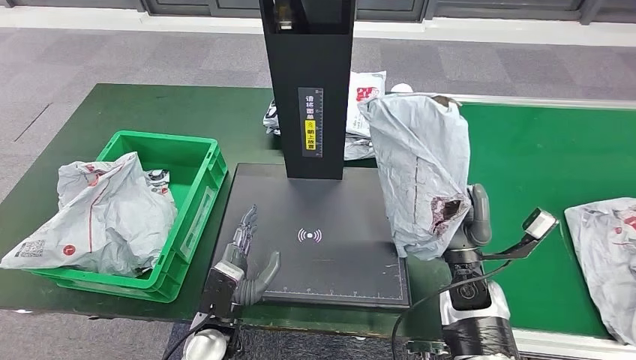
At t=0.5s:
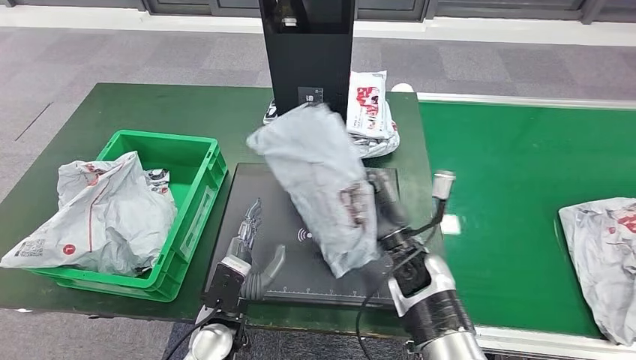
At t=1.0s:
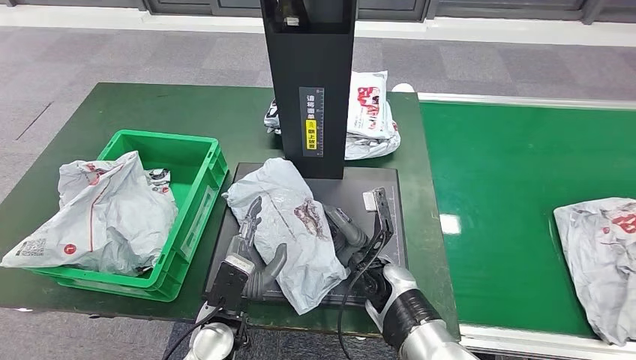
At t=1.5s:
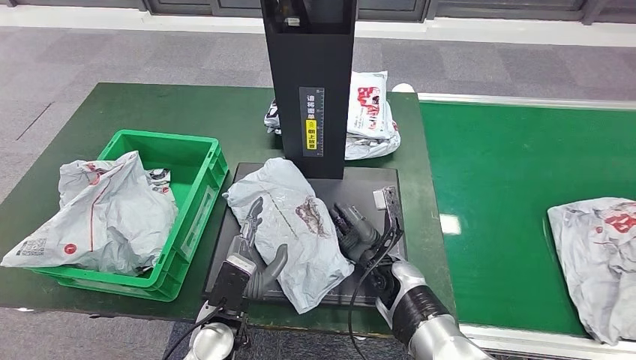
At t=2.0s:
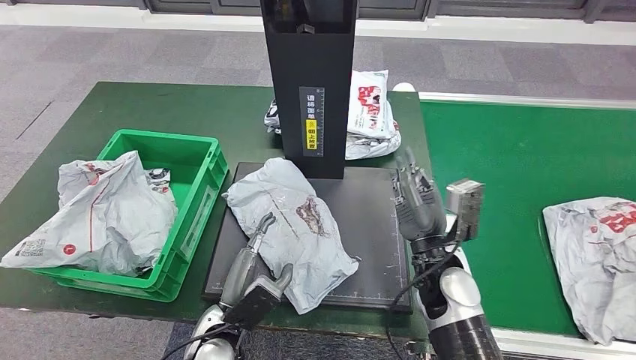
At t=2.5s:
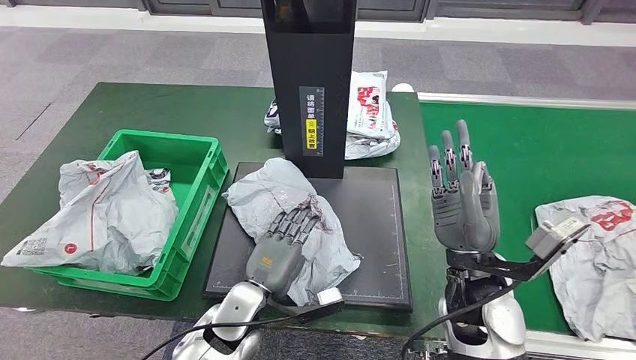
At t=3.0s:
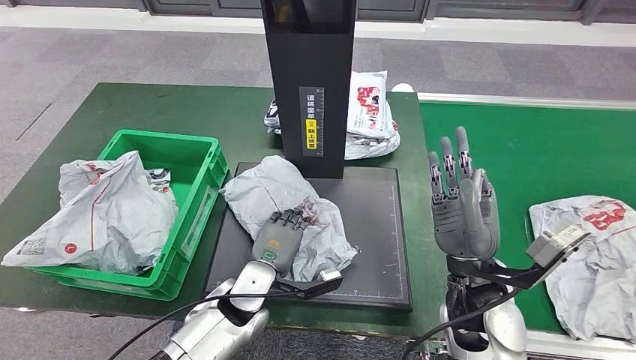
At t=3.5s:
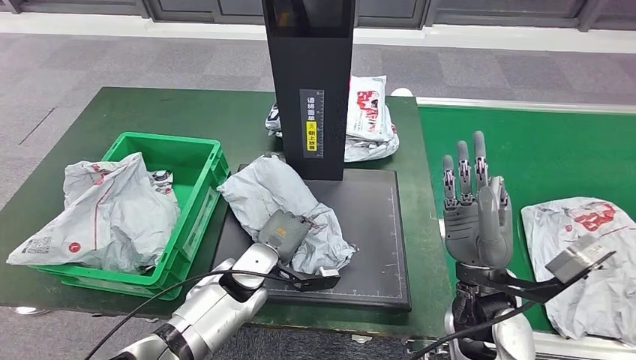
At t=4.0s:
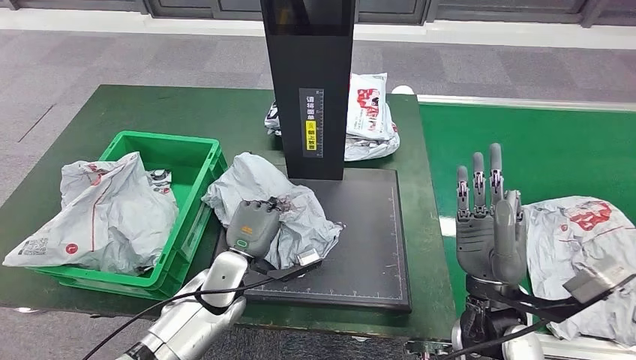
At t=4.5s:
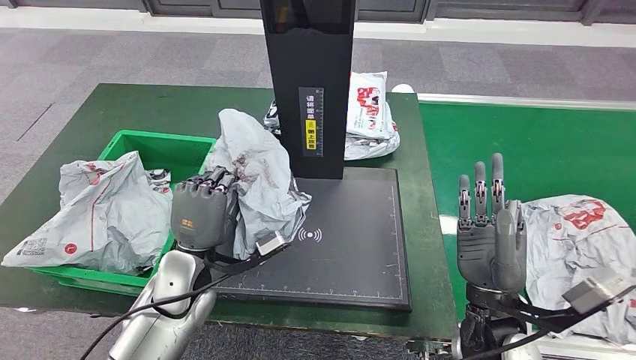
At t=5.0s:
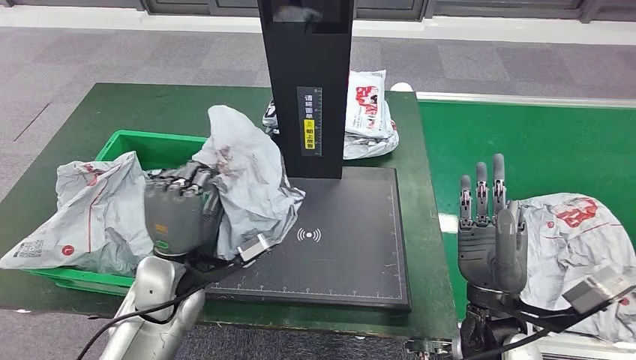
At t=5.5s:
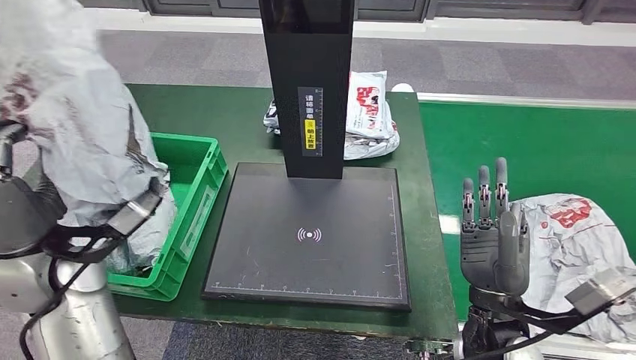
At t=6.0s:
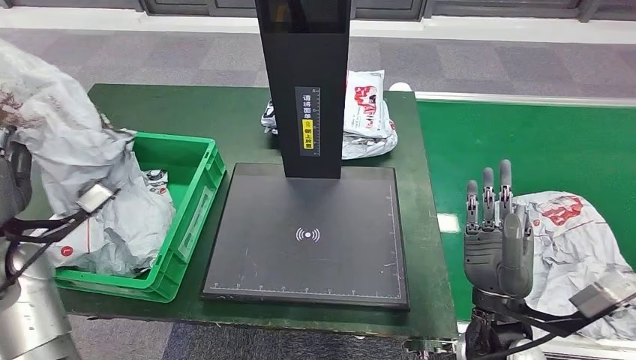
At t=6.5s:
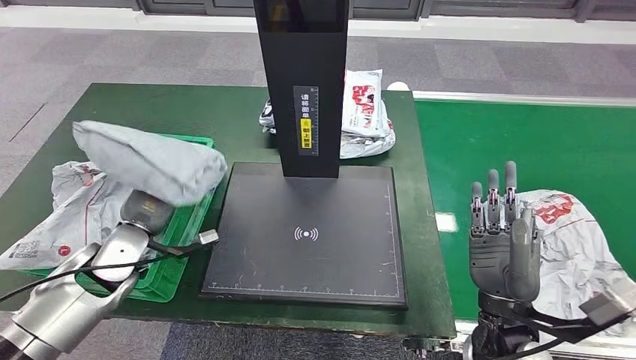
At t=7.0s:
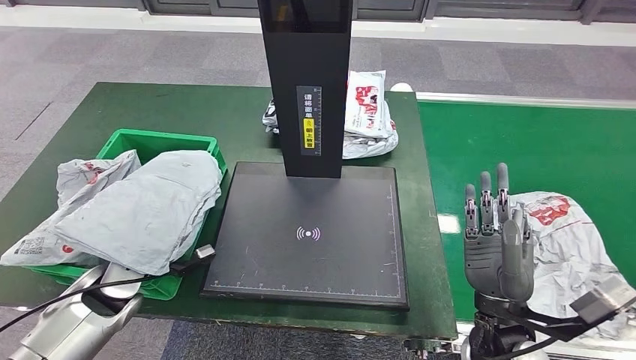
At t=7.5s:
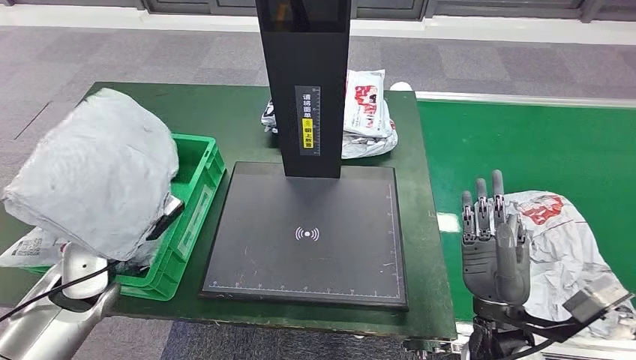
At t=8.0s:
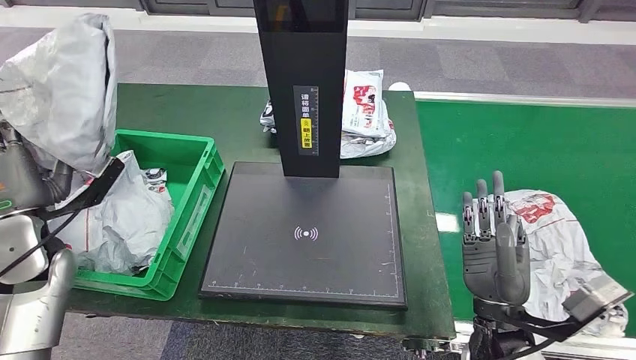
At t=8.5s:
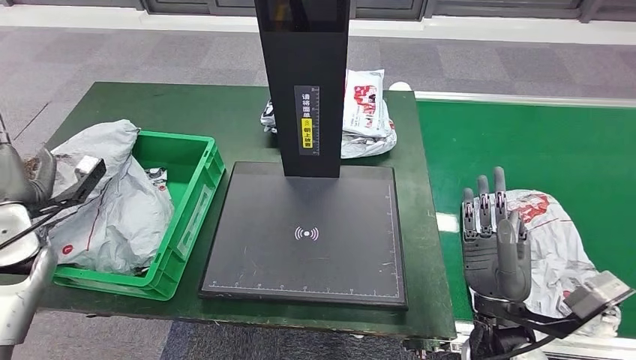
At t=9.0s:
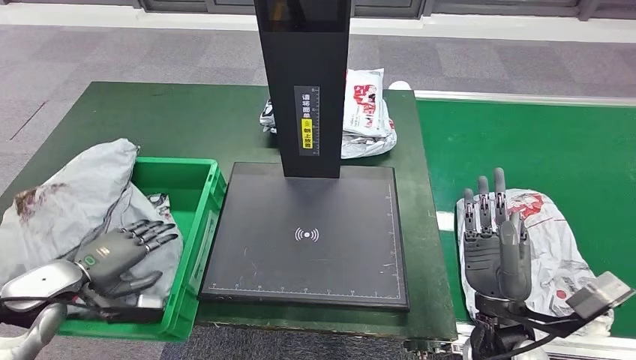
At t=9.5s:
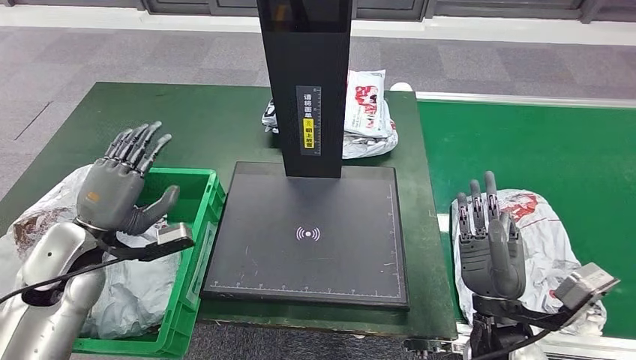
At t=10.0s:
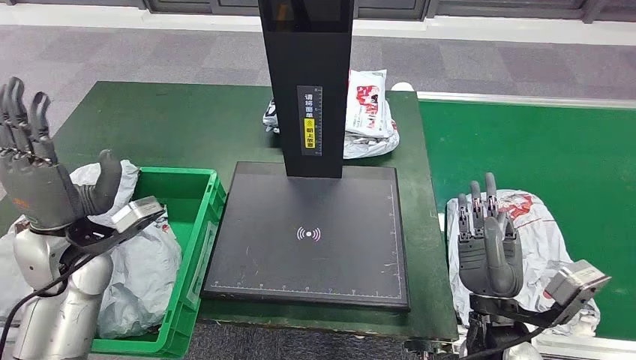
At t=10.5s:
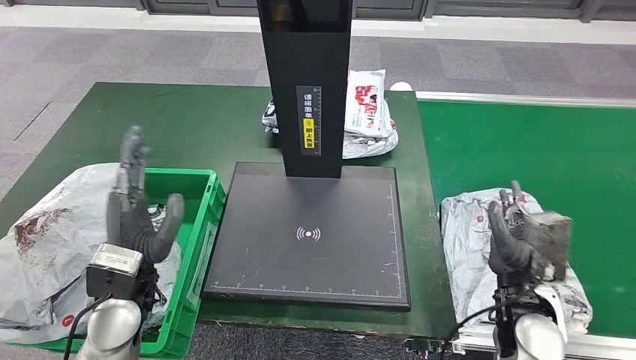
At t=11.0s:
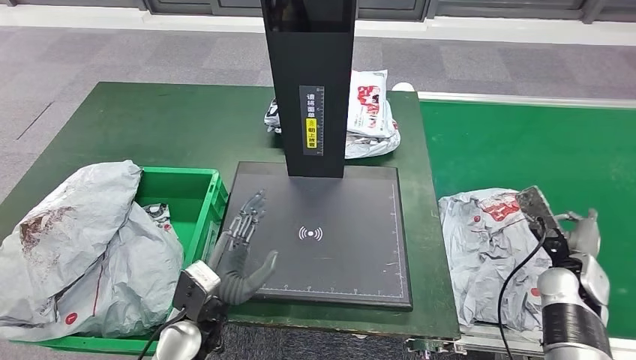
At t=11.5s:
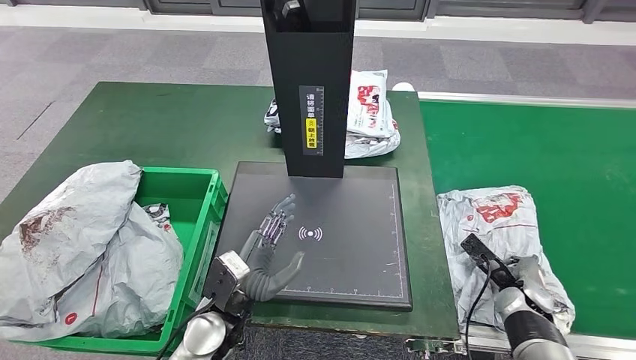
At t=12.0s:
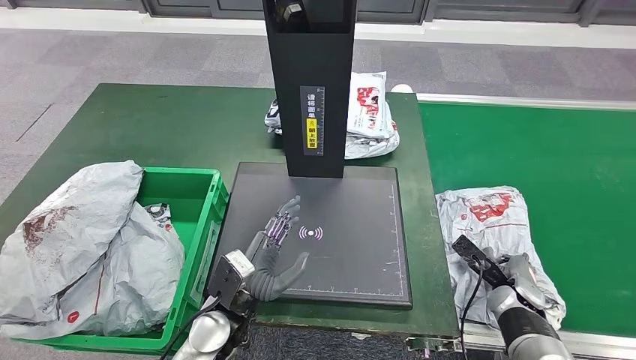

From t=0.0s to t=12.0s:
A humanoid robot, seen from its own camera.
Step, from t=0.5s to t=2.0s: Place the parcel onto the inbound machine.
Step, from t=2.5s to t=4.5s: Pick up the parcel from the inbound machine.
Step, from t=5.0s to t=9.5s: Place the parcel into the delivery box.

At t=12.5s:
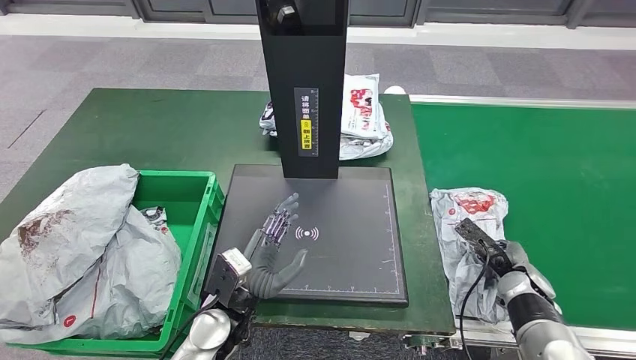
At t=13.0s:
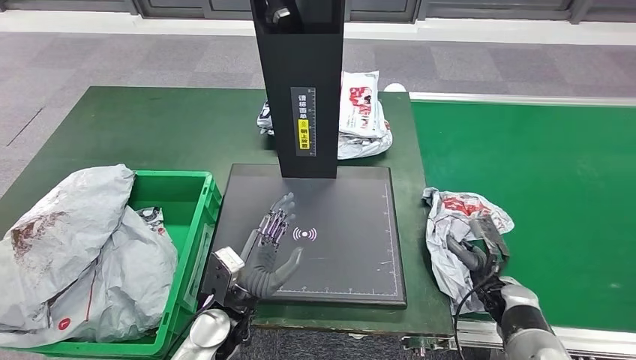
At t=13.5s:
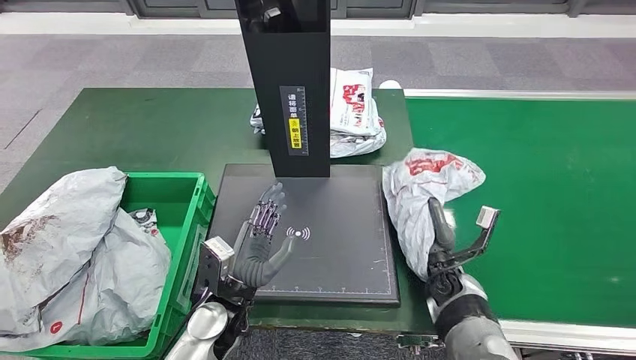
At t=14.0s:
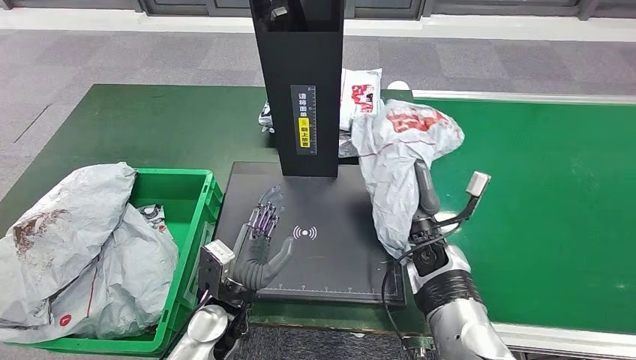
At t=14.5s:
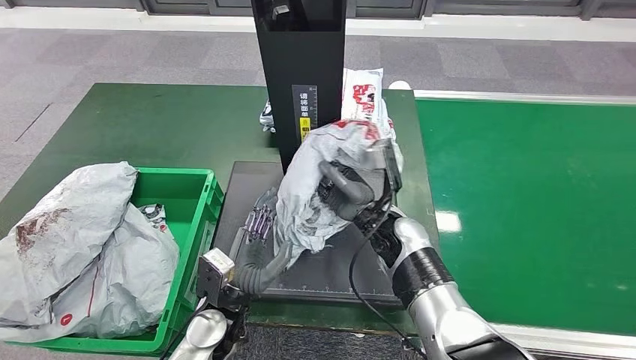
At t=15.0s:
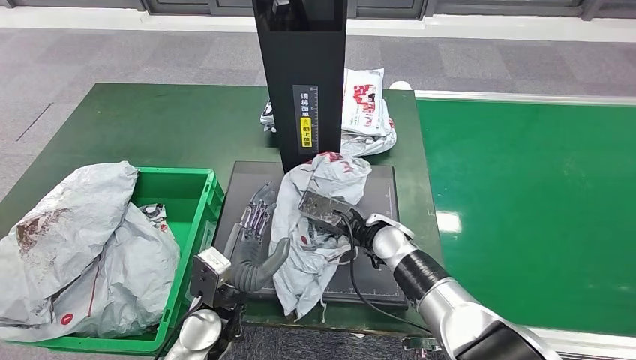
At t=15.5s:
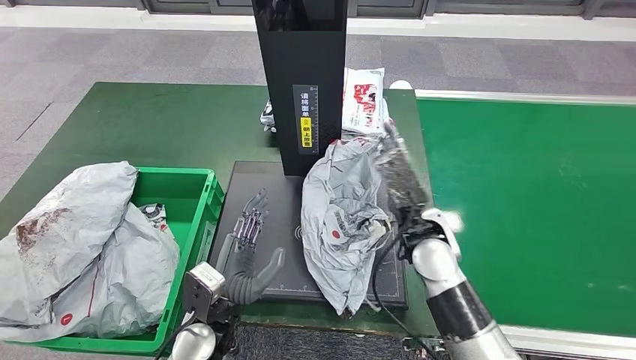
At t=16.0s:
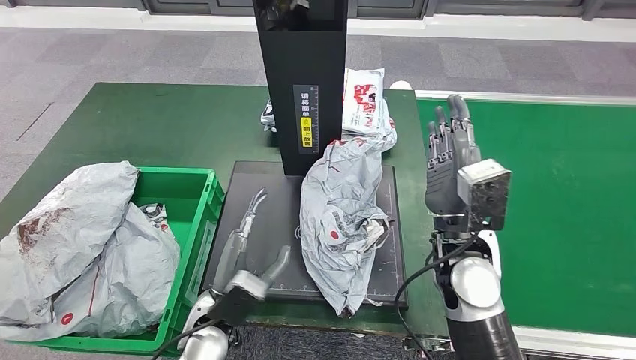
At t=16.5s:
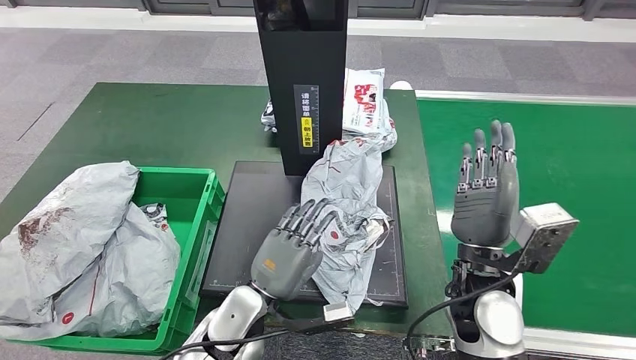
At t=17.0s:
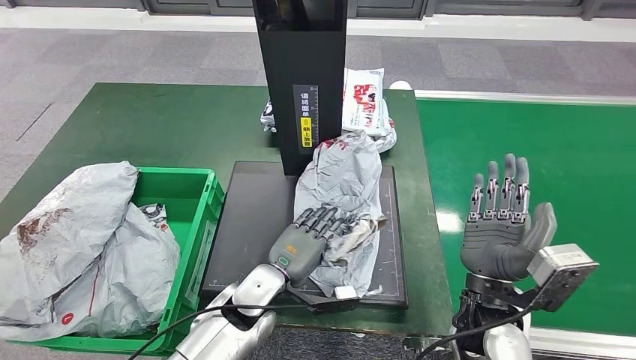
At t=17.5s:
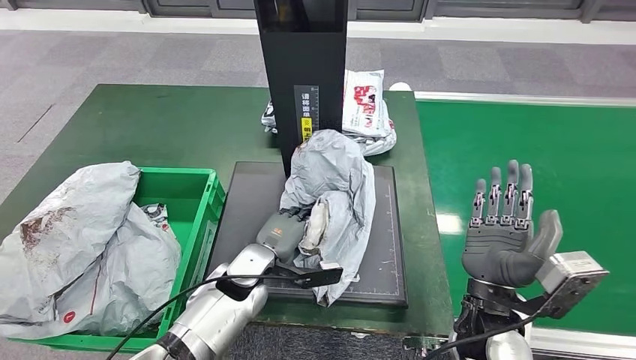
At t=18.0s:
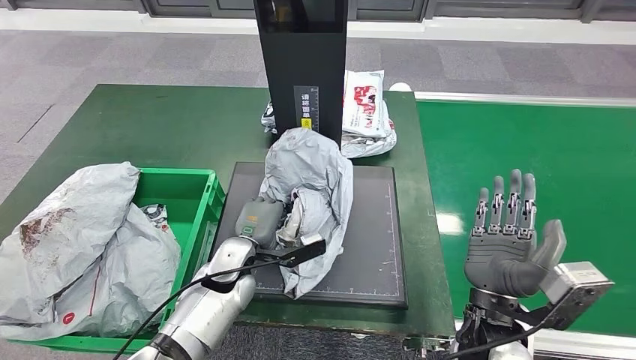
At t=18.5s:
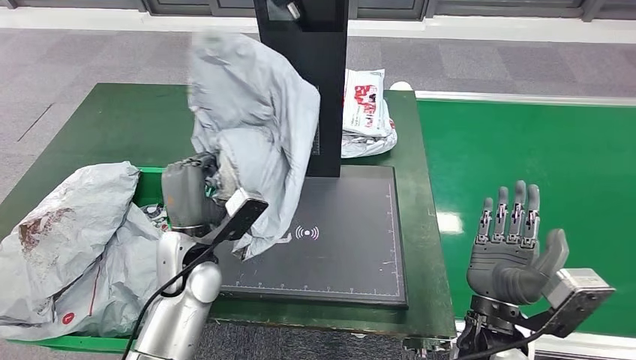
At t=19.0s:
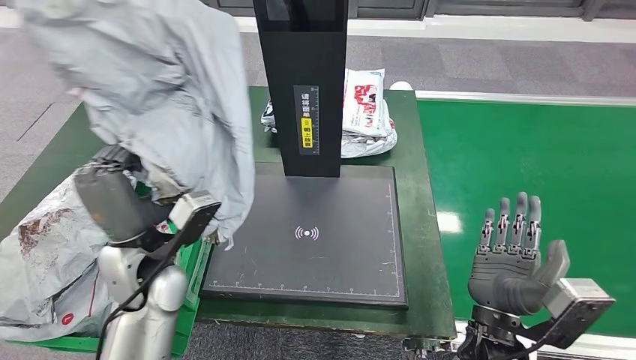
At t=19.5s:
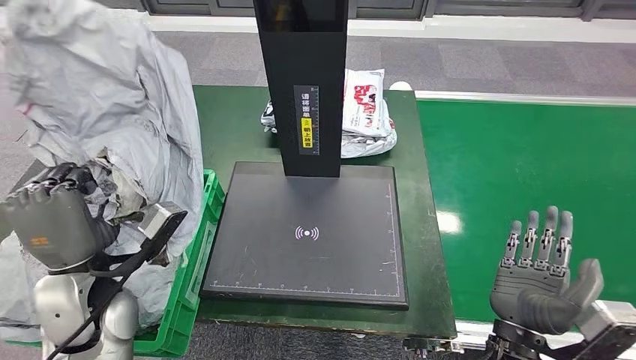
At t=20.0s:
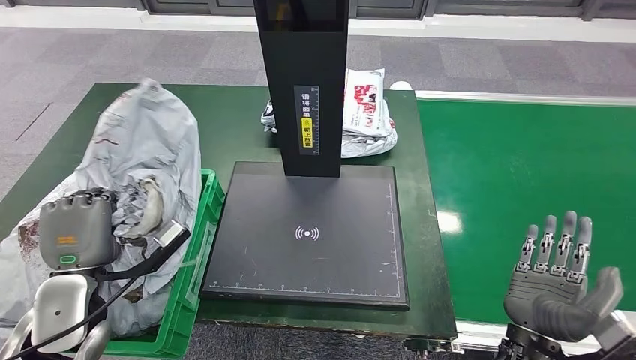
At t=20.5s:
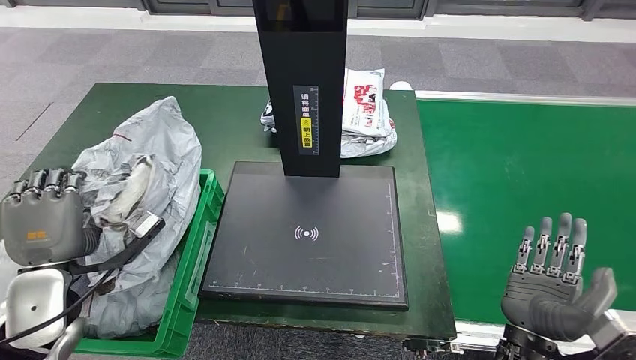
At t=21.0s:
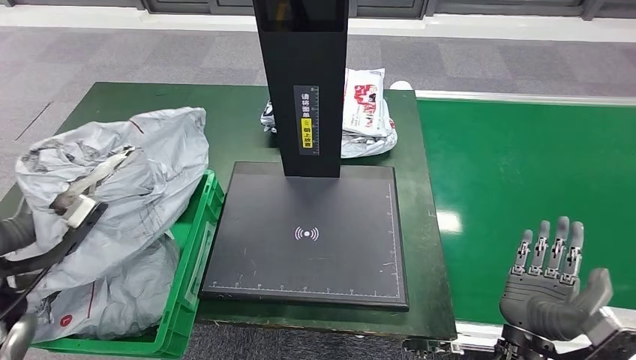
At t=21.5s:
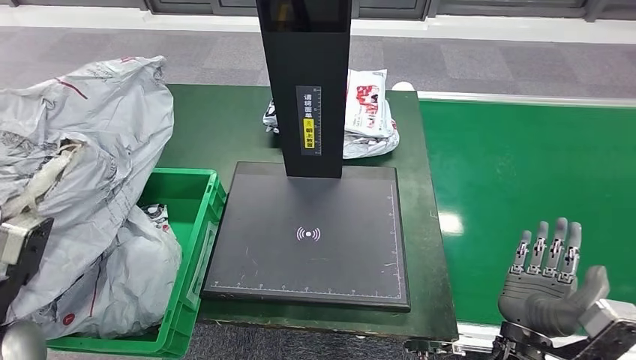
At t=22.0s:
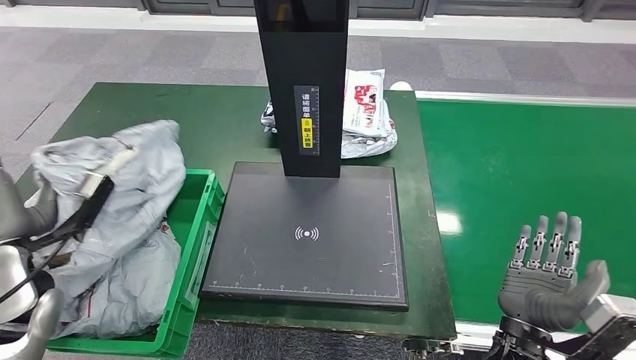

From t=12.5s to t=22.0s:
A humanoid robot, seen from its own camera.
Step, from t=14.0s to t=16.0s: Place the parcel onto the inbound machine.
Step, from t=16.5s to t=18.5s: Pick up the parcel from the inbound machine.
From t=20.0s to t=22.0s: The left hand moves to the left, about 5 cm.
